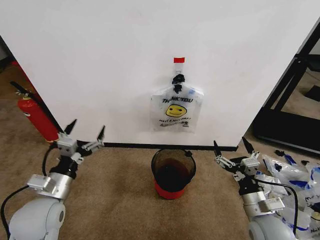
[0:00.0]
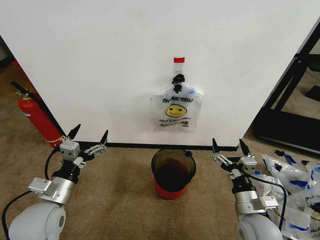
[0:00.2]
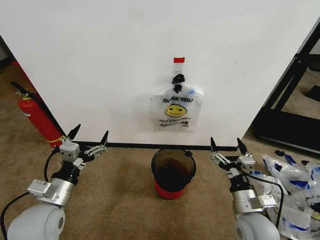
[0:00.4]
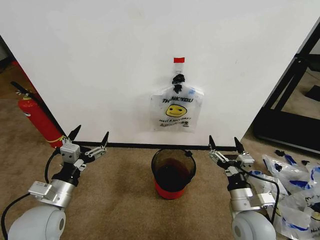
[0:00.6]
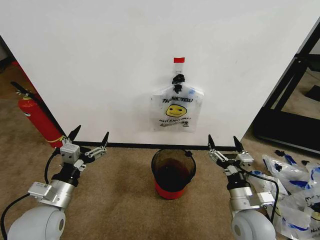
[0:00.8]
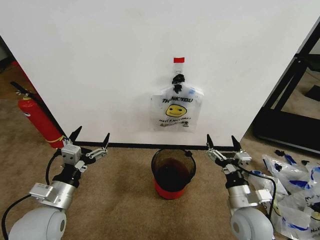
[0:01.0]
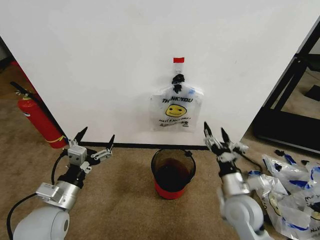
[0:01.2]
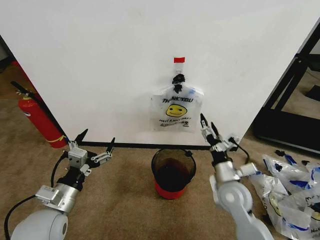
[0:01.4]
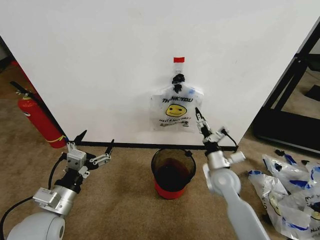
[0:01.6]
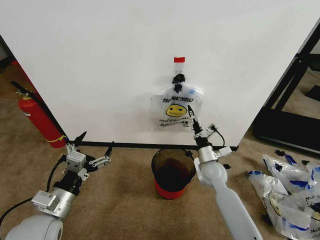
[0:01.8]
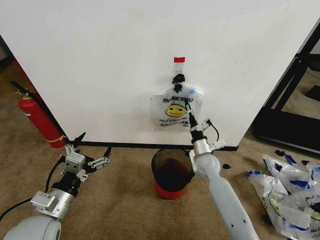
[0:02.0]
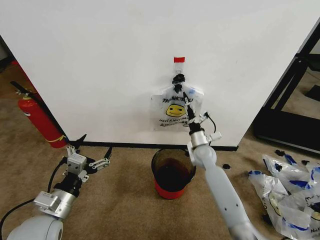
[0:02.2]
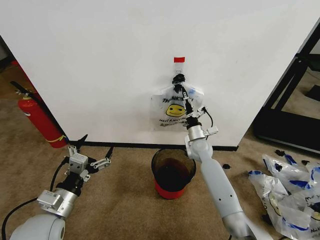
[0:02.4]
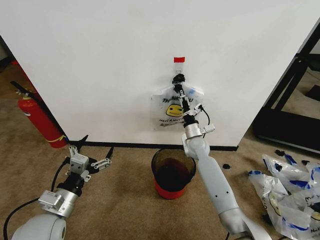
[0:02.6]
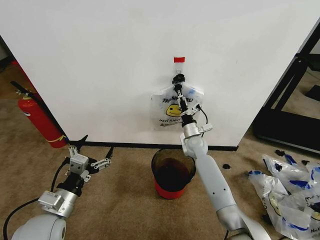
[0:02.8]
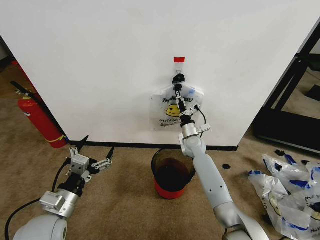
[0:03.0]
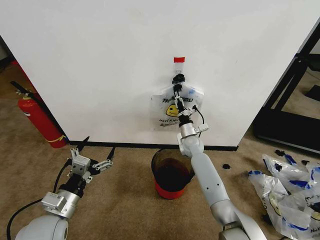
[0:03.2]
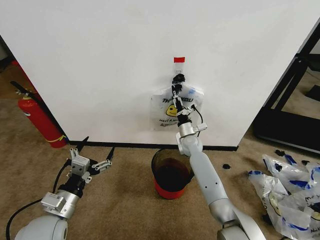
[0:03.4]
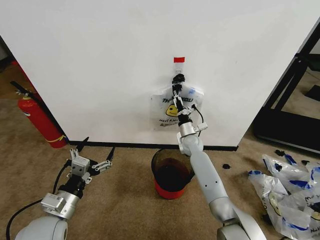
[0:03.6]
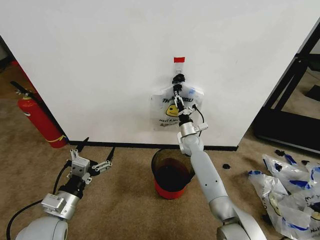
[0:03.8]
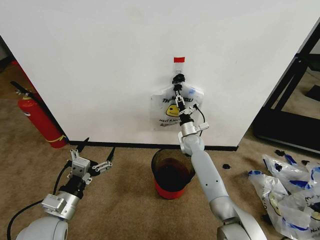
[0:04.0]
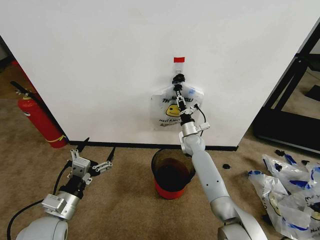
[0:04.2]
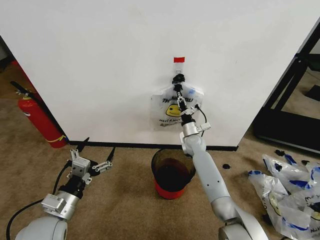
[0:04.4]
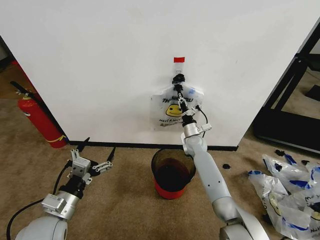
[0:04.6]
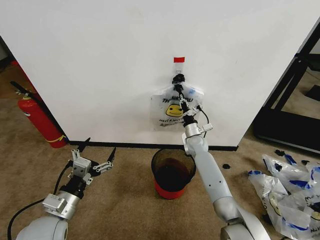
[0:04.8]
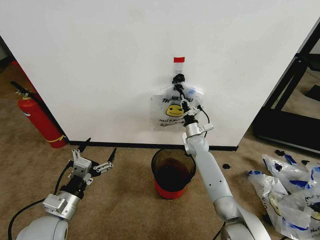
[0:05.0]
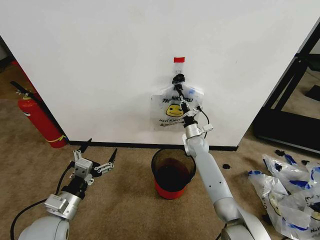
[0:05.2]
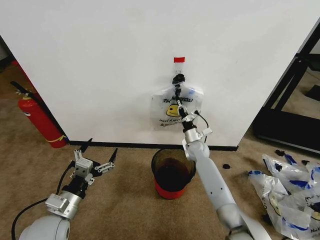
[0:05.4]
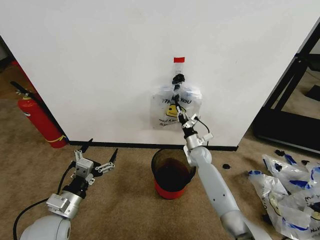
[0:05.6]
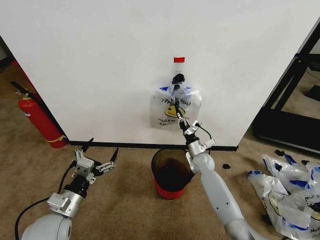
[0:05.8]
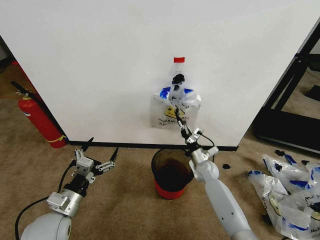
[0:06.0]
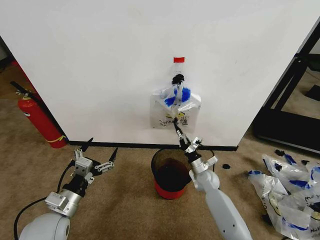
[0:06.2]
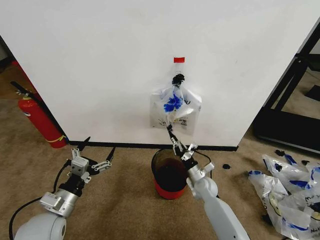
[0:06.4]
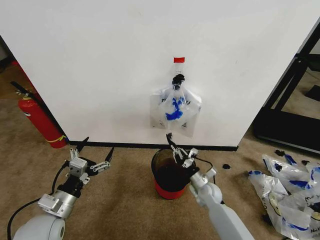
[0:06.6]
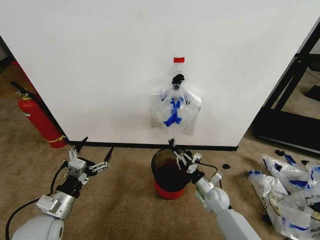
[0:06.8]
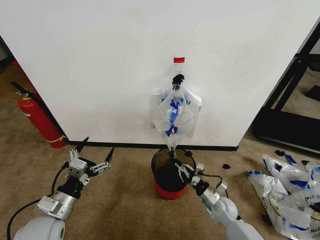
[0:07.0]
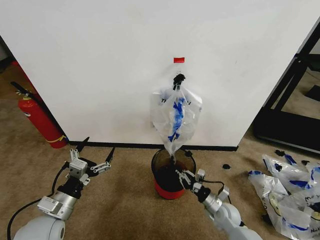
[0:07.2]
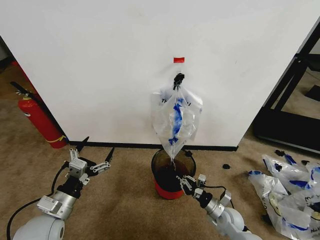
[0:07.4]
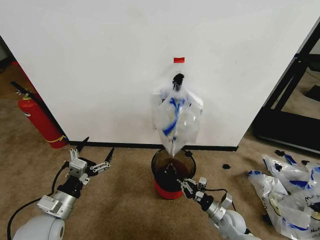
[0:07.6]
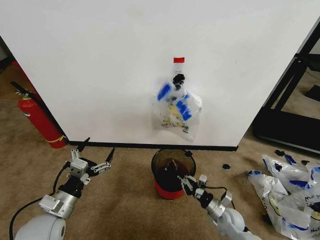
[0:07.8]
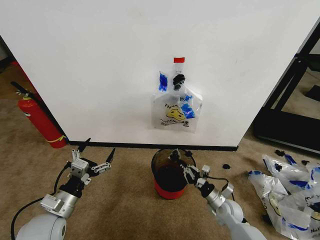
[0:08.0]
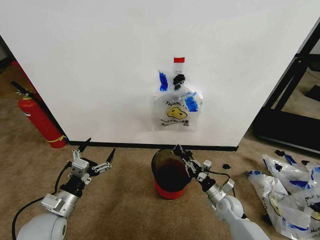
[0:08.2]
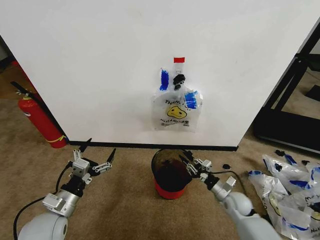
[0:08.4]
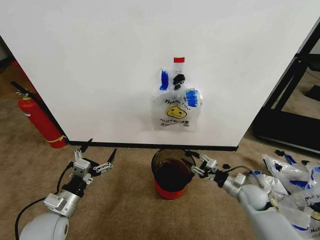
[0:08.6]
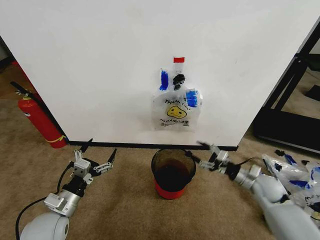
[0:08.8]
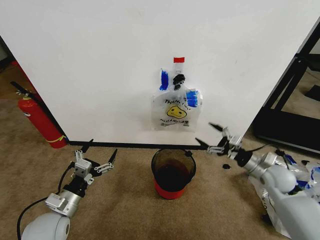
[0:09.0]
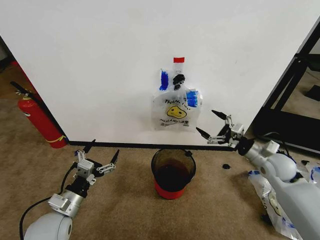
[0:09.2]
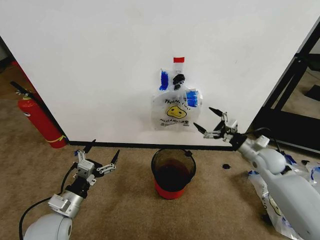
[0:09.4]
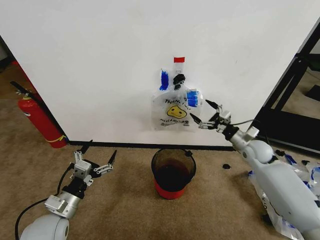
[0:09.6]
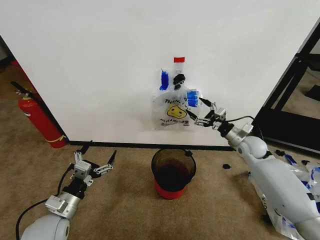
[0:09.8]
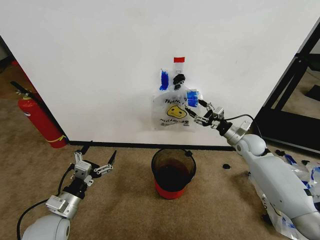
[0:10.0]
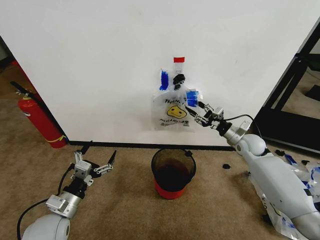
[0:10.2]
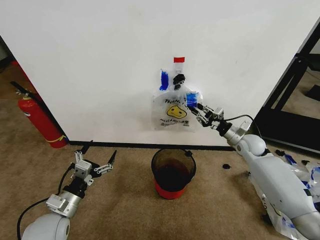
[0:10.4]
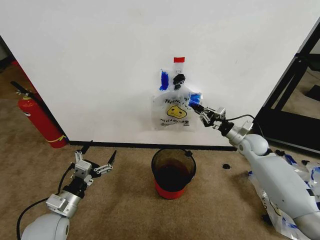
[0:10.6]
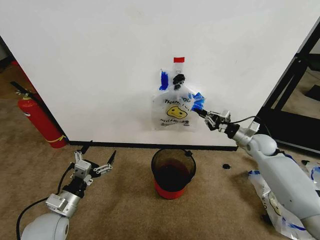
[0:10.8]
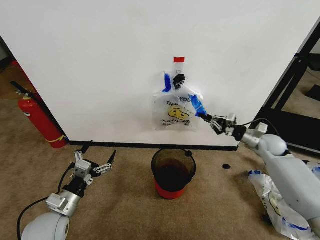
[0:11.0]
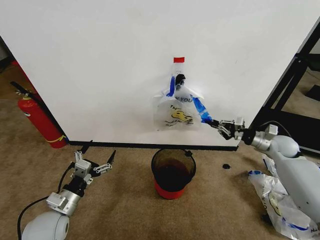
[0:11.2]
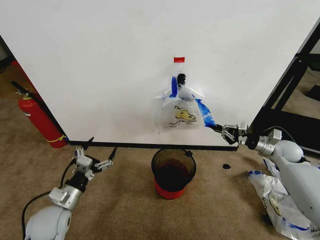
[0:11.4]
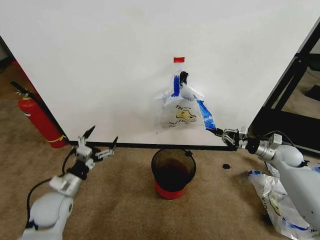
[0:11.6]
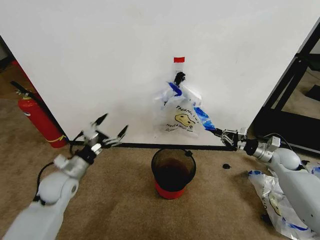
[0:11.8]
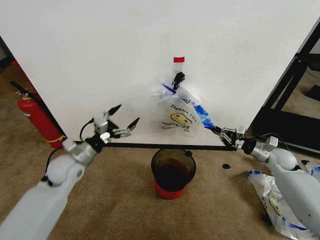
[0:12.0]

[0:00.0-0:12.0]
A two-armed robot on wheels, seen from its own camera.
Task of the whole recording: Pick up the garbage bag from the wall and place it over the trash bin.
0:01.6 to 0:03.0: The right gripper heads forward, covering roughly 15 cm.
0:03.0 to 0:04.4: The right gripper closes its fingers.
0:04.4 to 0:06.0: The right gripper is displaced backward, downward and to the right by approximately 15 cm.
0:06.0 to 0:07.6: The right gripper goes about 20 cm backward.
0:07.6 to 0:09.0: The right gripper moves upward, to the right and forward, approximately 25 cm, and opens up.
0:09.0 to 0:10.4: The right gripper travels forward by approximately 15 cm, and closes up.
0:10.4 to 0:12.0: The right gripper moves to the right, some 10 cm, while the left gripper heads forward, covering about 15 cm.

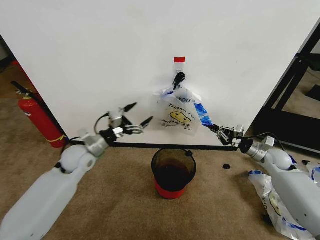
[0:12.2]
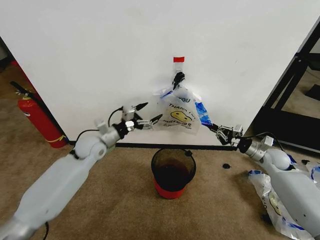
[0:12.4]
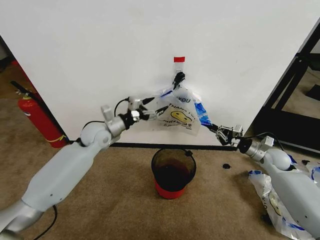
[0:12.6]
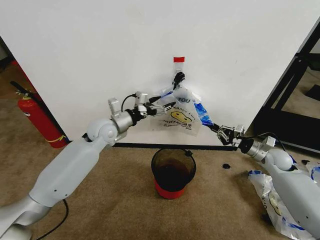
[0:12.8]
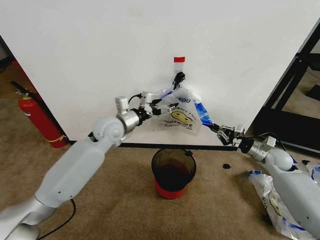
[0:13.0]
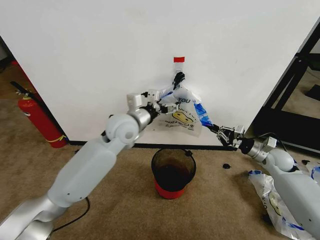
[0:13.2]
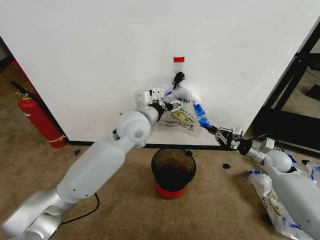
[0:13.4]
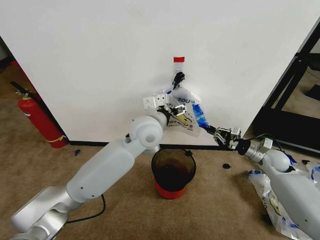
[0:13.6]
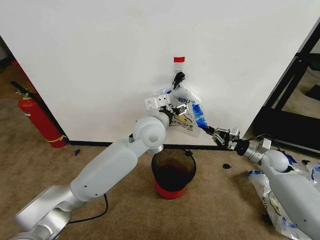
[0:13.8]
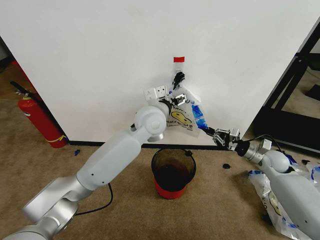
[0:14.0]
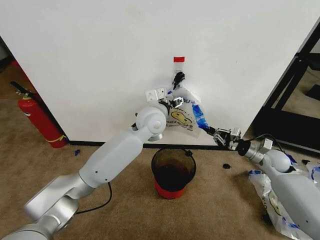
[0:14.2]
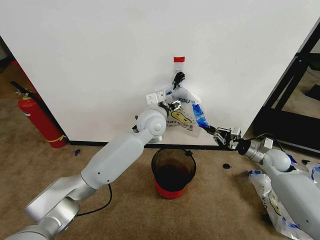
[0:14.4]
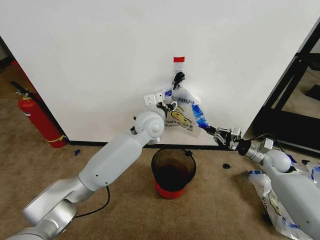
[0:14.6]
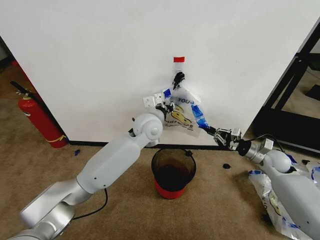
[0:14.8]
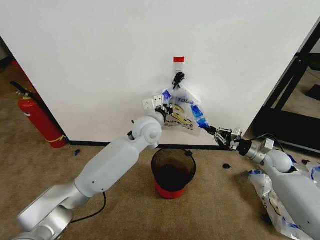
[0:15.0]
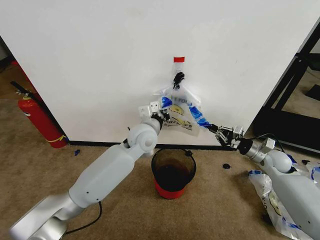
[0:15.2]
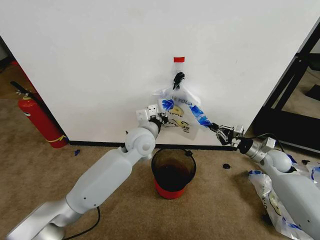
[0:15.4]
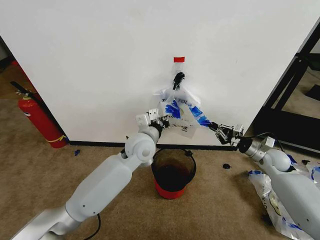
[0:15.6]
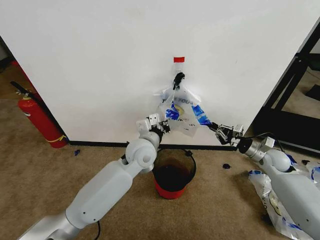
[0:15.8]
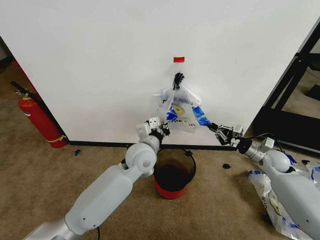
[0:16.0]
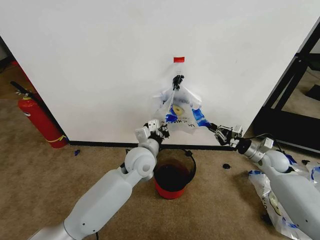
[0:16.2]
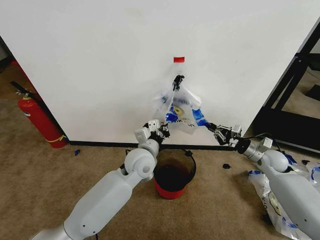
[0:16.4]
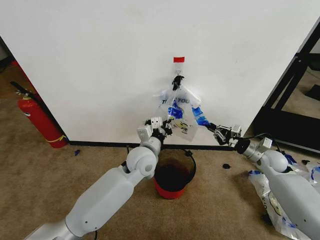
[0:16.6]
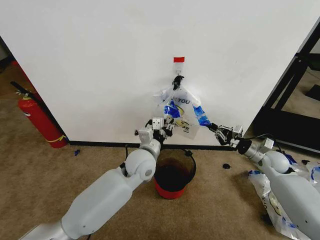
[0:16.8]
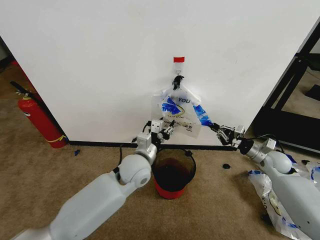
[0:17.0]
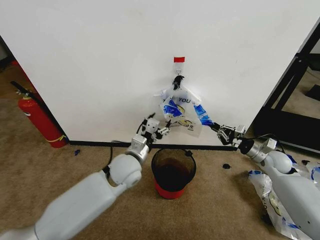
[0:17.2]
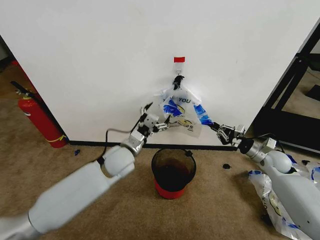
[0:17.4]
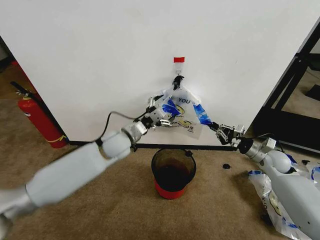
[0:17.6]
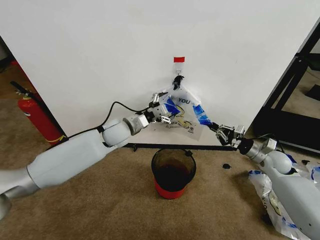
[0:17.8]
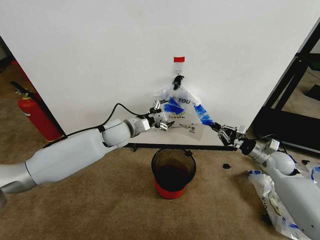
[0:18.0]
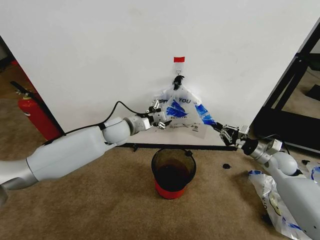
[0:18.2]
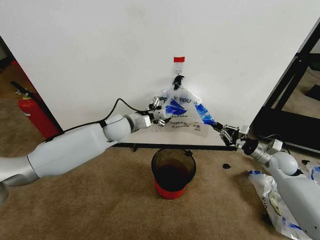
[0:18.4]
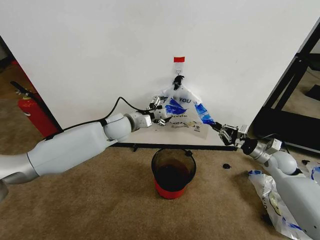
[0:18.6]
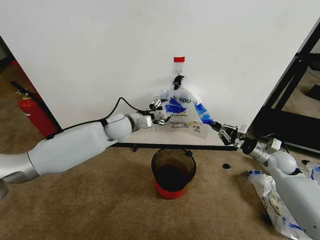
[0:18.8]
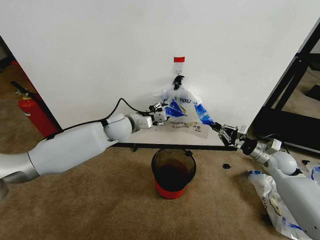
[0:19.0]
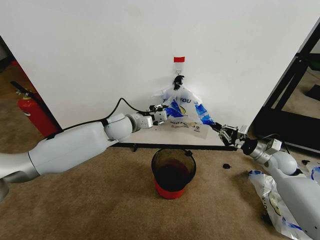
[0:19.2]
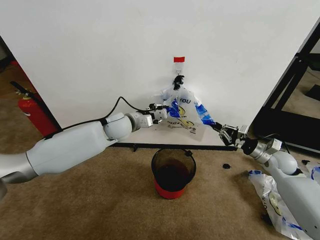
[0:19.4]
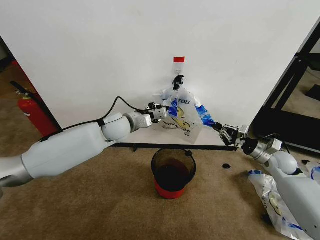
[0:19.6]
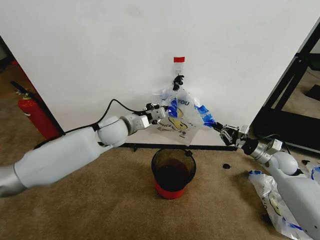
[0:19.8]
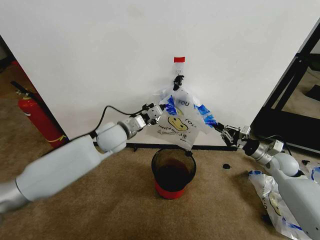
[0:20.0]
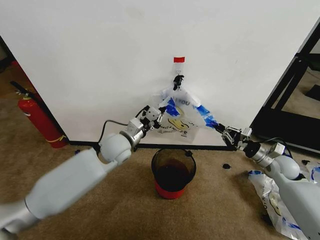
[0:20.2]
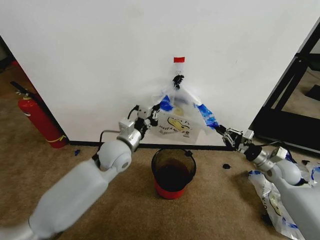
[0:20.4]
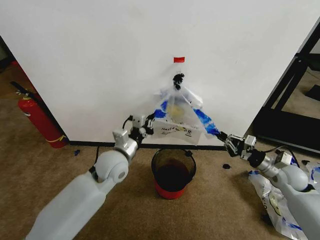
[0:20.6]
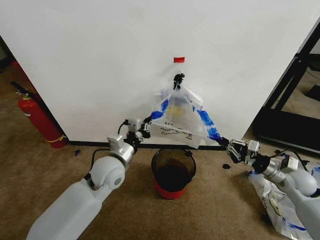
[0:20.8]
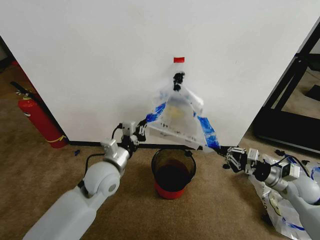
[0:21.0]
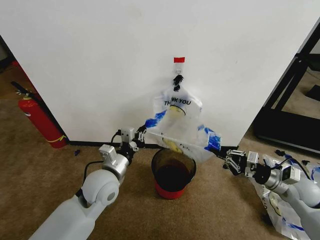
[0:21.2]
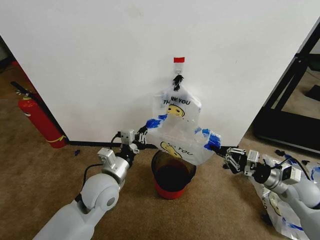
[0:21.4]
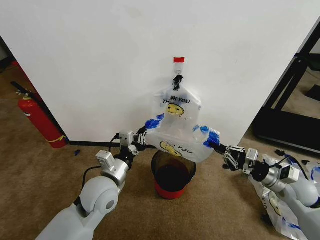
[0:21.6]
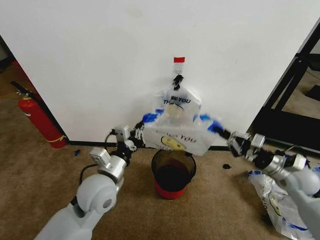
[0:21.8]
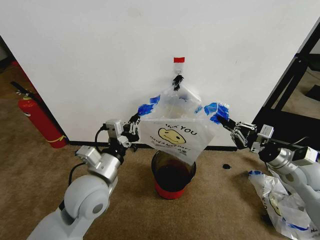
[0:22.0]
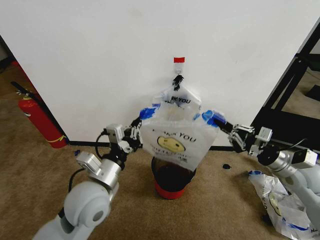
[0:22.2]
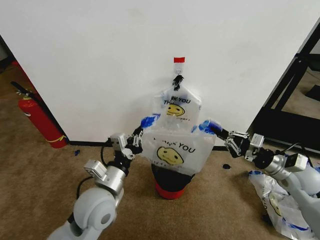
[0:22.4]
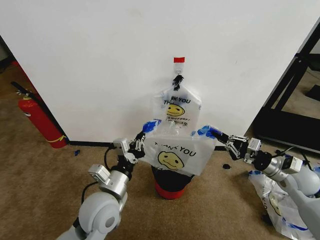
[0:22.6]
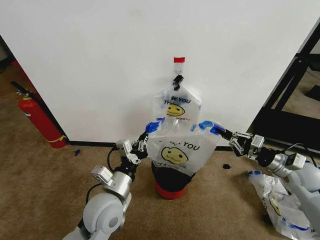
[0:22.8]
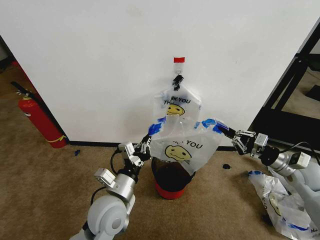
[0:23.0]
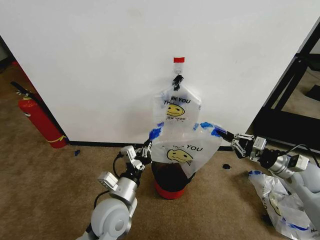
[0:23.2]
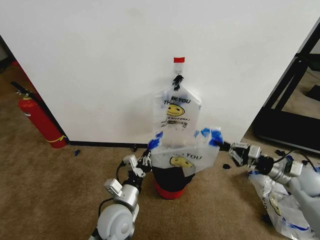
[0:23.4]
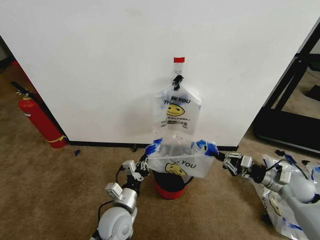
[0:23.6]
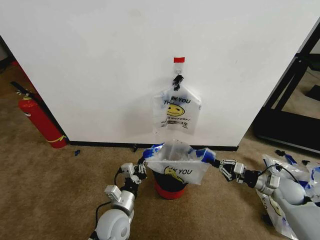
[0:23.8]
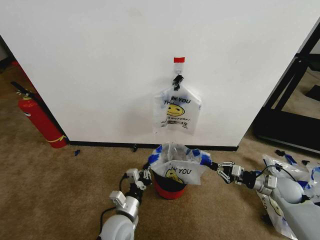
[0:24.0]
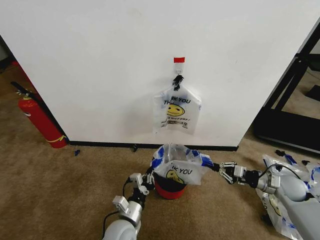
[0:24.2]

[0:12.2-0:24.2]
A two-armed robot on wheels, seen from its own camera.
Task of the whole recording: Pick up the garbage bag from the wall and place it over the trash bin.
0:12.2 to 0:13.8: The left gripper moves to the right and upward, approximately 25 cm.
0:13.8 to 0:15.2: The left gripper moves some 5 cm, and closes its fingers.
0:15.2 to 0:16.6: The left gripper is displaced downward and backward by approximately 10 cm.
0:16.6 to 0:18.2: The left gripper shifts about 15 cm forward and to the left, and opens its fingers.
0:18.2 to 0:19.8: The left gripper closes up.
0:19.8 to 0:21.2: The left gripper travels backward and downward by roughly 15 cm. Meanwhile the right gripper heads backward, covering roughly 10 cm.
0:21.2 to 0:22.6: The left gripper travels backward by some 5 cm.
0:22.6 to 0:24.2: The right gripper heads downward, covering roughly 10 cm, while the left gripper moves downward, some 15 cm.
